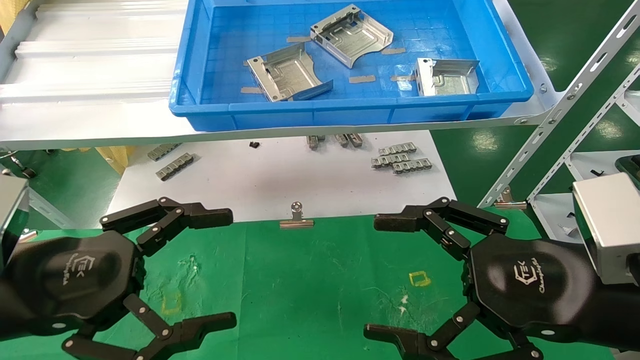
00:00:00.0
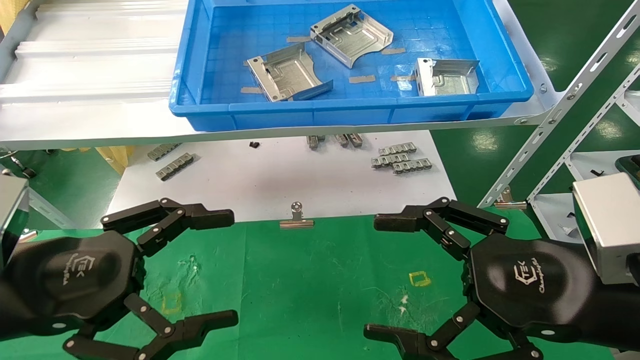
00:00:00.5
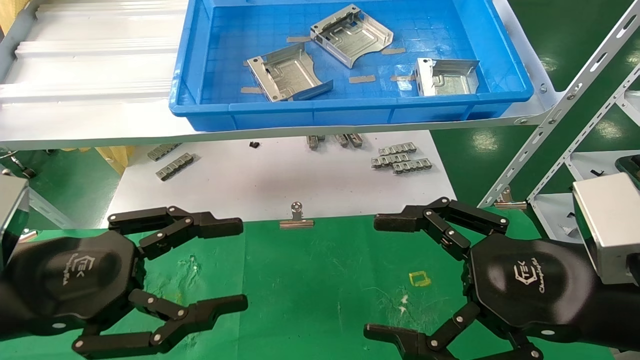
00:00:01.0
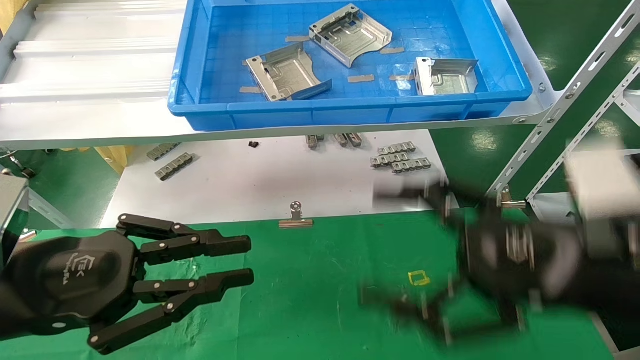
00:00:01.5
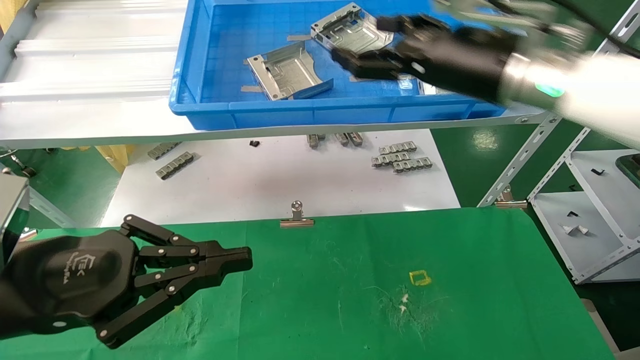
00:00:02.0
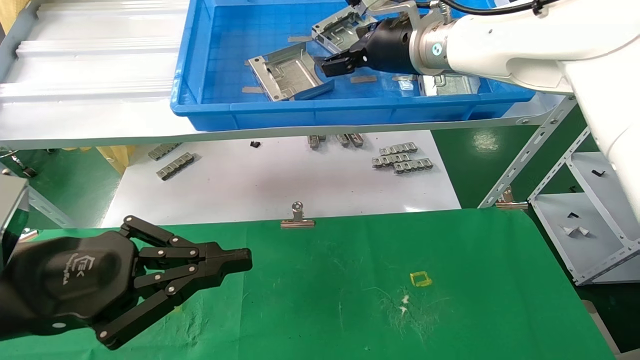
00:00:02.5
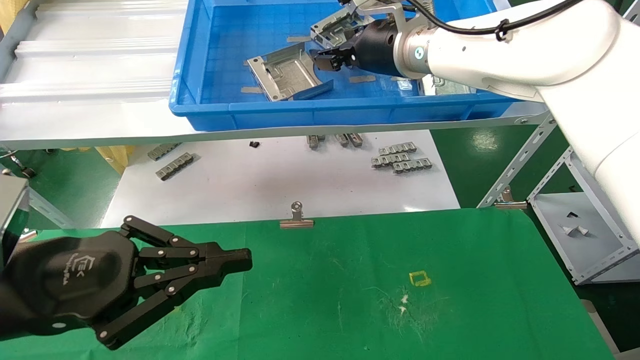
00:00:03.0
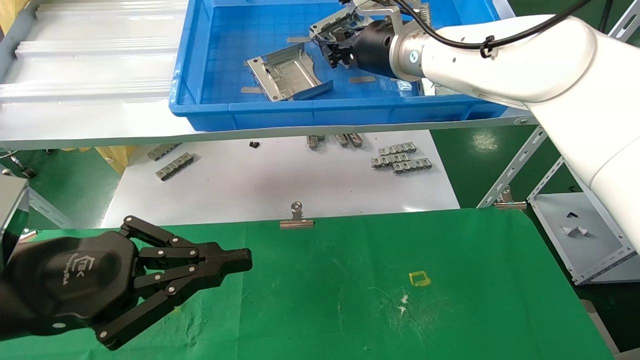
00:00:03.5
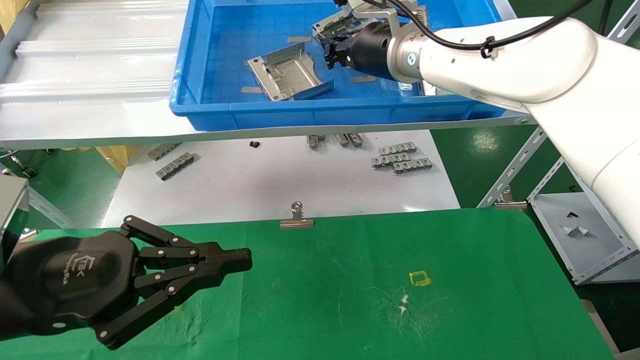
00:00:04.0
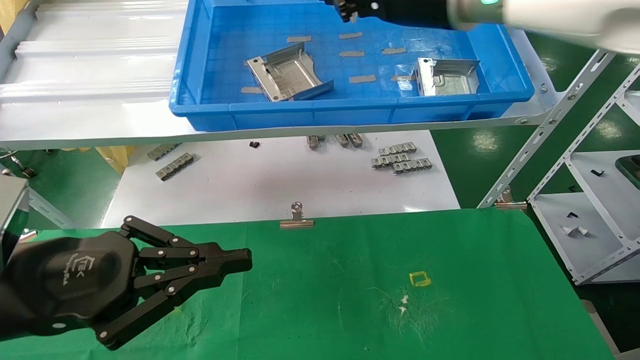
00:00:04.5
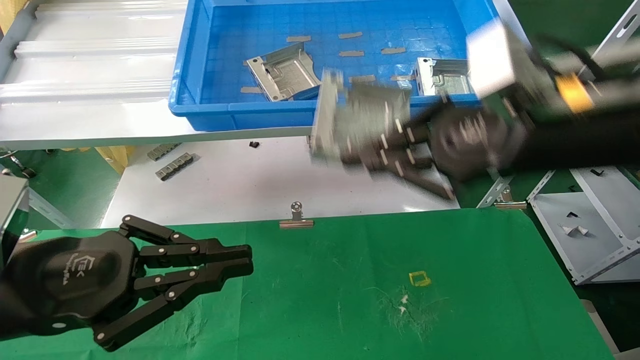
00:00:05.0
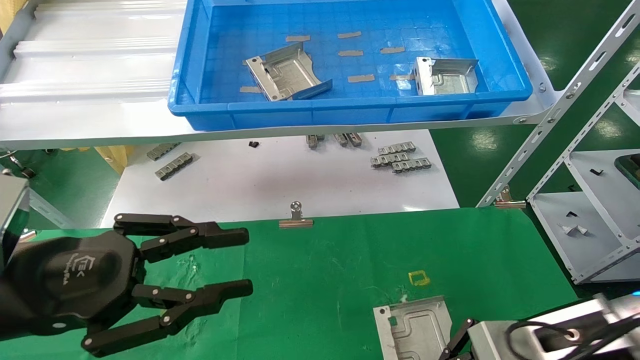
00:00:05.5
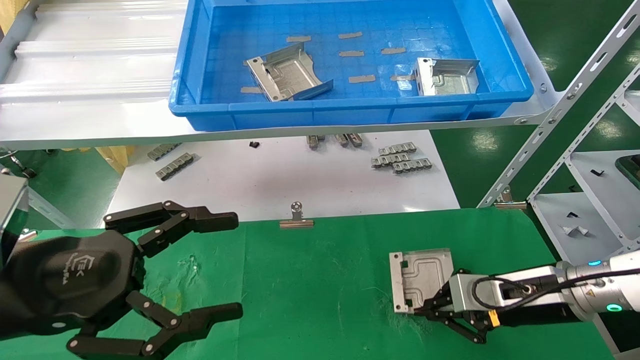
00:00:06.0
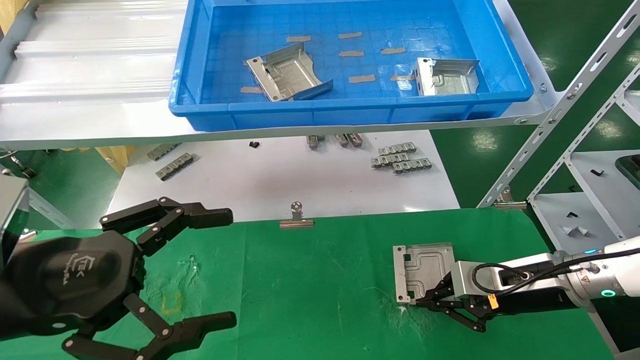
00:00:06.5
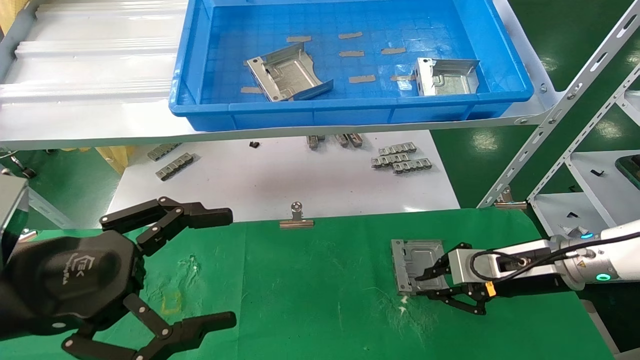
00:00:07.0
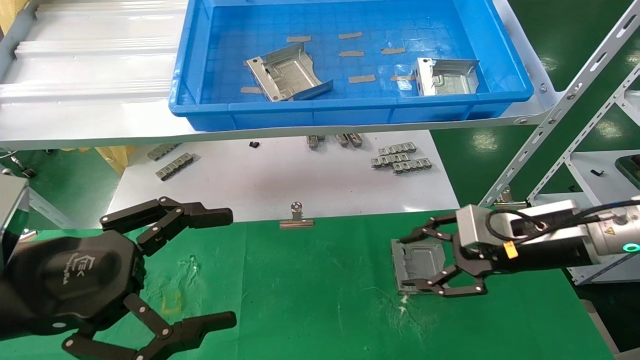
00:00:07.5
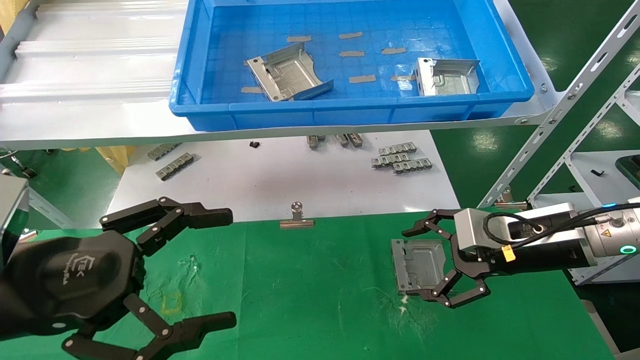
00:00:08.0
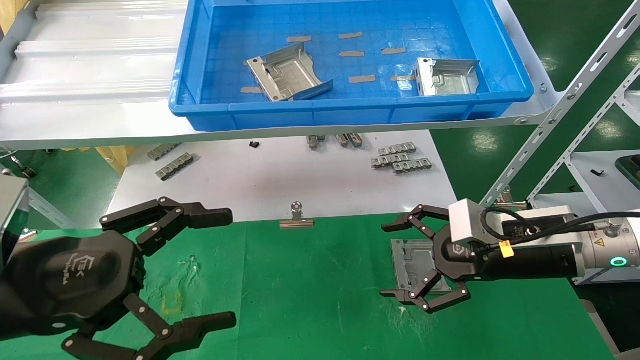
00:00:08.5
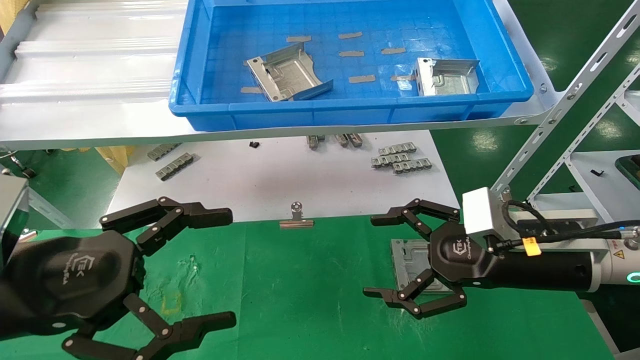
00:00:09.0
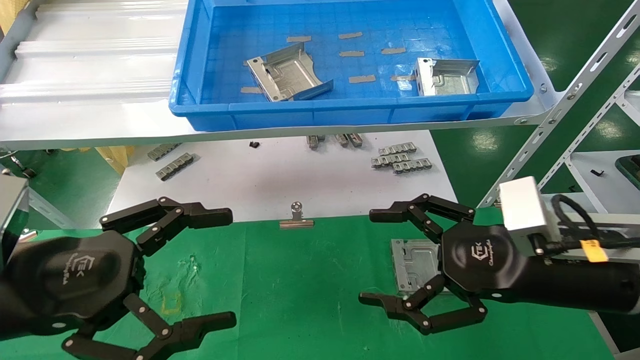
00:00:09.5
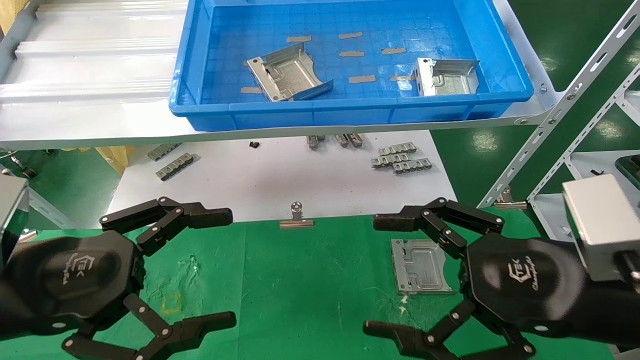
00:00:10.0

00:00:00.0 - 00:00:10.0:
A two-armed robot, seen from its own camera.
Task of the whole recording: use the mechanical arm to pick up the parts and place them on the table.
Step, 00:00:02.0 - 00:00:04.0: Pick up the hard drive bracket from the feeding area.
Step, 00:00:04.5 - 00:00:07.0: Place the hard drive bracket into the box.
00:00:00.0 - 00:00:02.0: The left gripper closes. Meanwhile the right gripper is displaced forward and upward by roughly 25 cm.
00:00:02.0 - 00:00:04.0: The right gripper shifts some 10 cm to the left and forward, and closes.
00:00:04.0 - 00:00:06.0: The right gripper heads downward and to the right, covering about 35 cm, while the left gripper opens its fingers.
00:00:06.0 - 00:00:08.0: The right gripper goes roughly 5 cm upward, and opens up.
00:00:08.0 - 00:00:10.0: The right gripper travels backward by about 15 cm.
